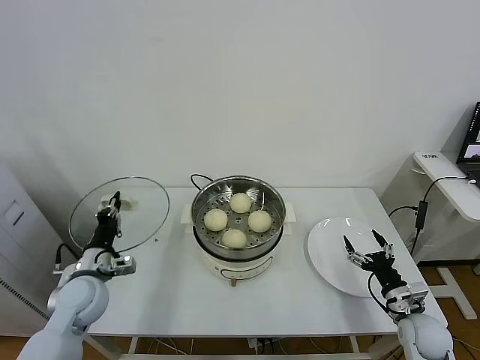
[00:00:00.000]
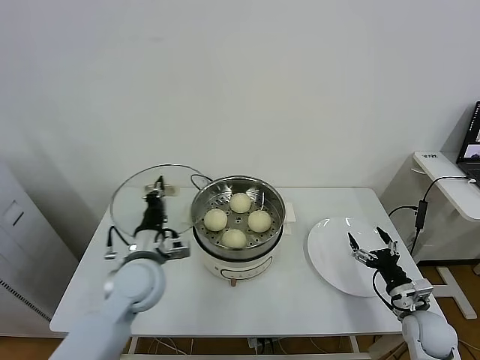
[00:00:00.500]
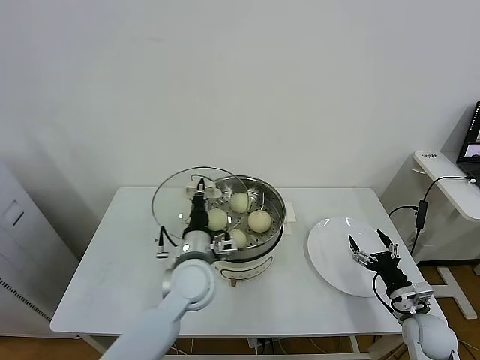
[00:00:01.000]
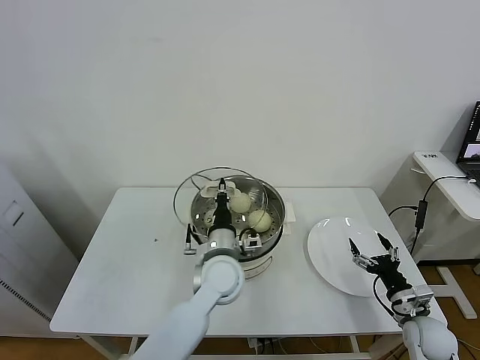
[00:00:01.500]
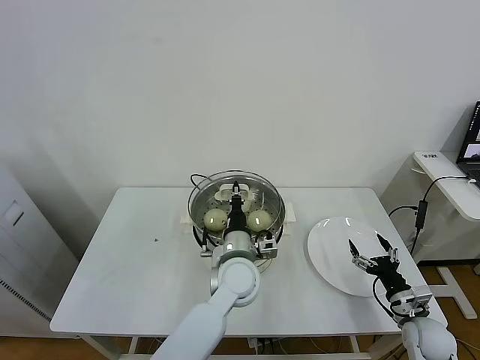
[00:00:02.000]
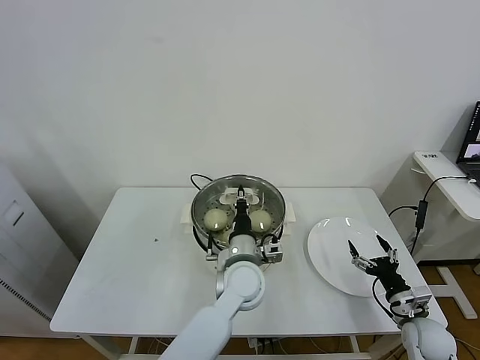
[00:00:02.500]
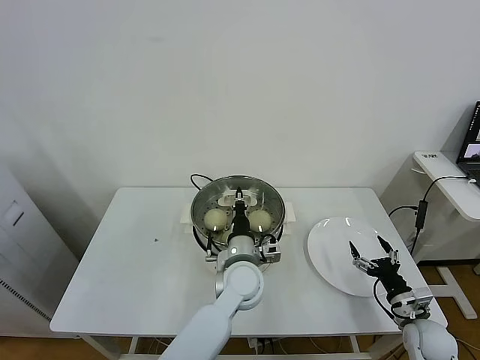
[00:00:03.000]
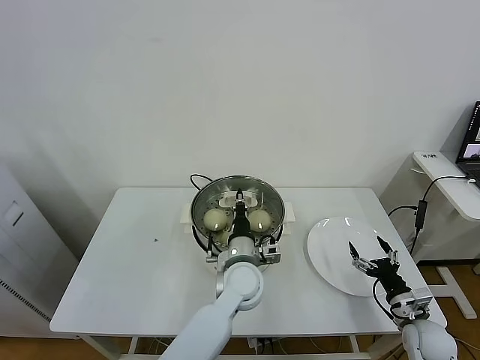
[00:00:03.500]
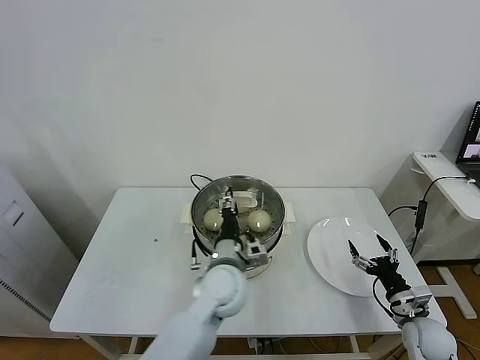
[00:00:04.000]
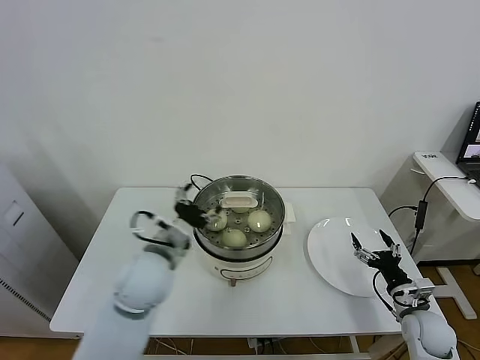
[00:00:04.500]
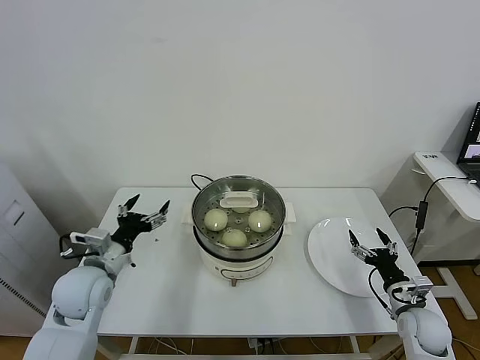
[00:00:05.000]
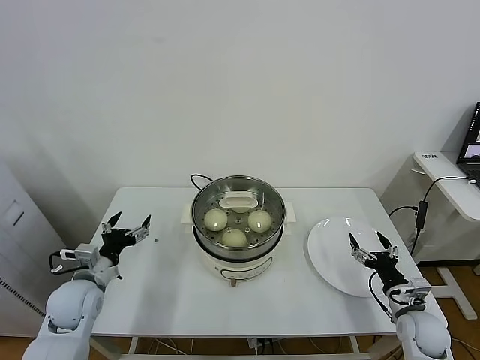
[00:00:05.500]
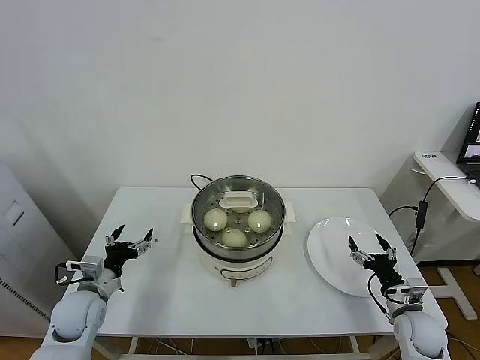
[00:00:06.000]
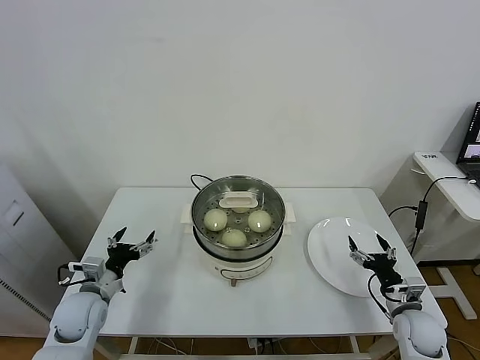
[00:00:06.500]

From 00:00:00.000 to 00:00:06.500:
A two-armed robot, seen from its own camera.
Task of the whole recording: take steamed baozi put them in steamer.
Step, from 00:00:00.000 to 00:00:04.000: Place the pot lid on the steamer with left gripper.
From 00:00:00.000 to 00:00:02.000: The left gripper moves to the right, roughly 30 cm.
From 00:00:02.000 to 00:00:04.500: The left gripper shifts approximately 15 cm to the left and upward, and opens its fingers.
From 00:00:04.500 to 00:00:06.500: The left gripper shifts about 25 cm to the left and downward.
